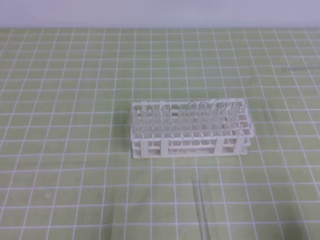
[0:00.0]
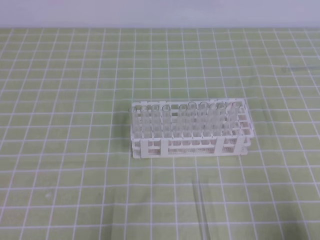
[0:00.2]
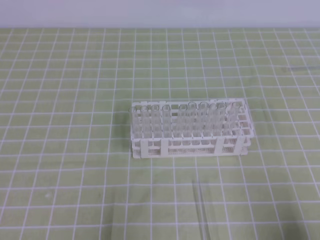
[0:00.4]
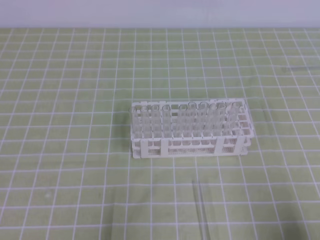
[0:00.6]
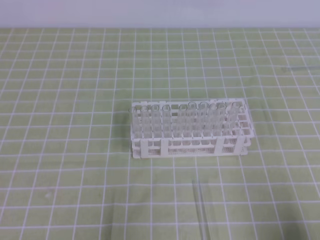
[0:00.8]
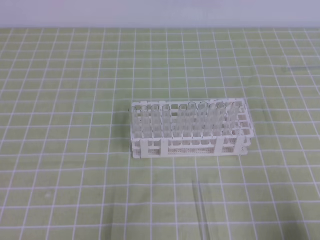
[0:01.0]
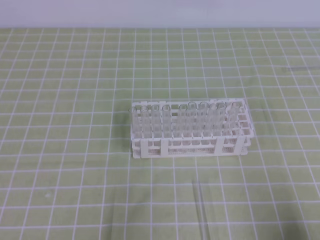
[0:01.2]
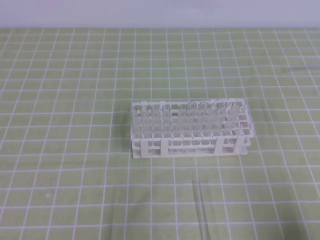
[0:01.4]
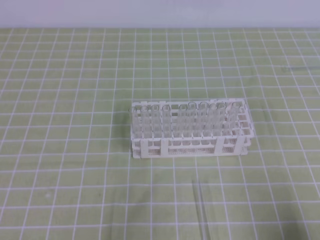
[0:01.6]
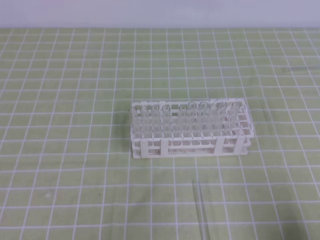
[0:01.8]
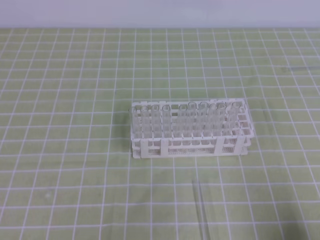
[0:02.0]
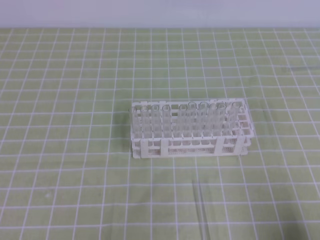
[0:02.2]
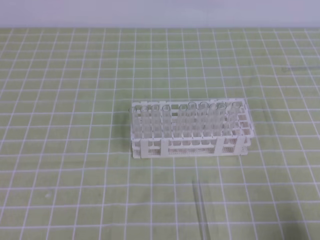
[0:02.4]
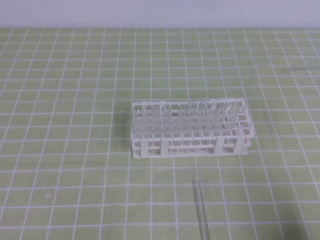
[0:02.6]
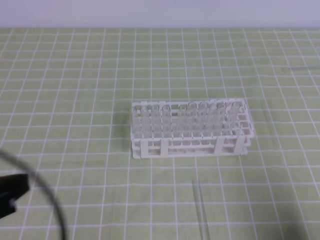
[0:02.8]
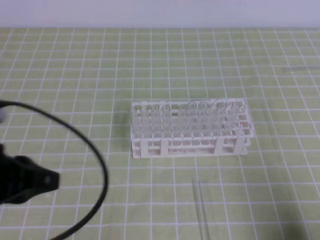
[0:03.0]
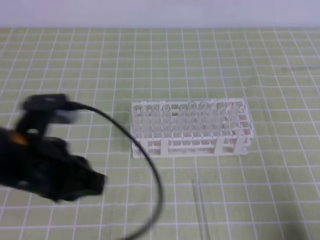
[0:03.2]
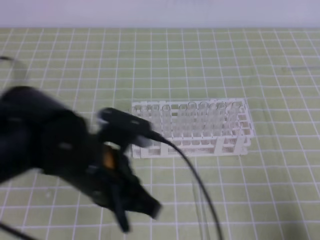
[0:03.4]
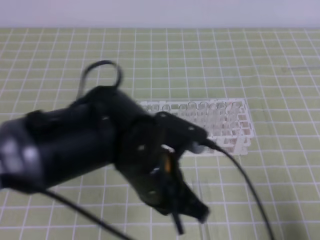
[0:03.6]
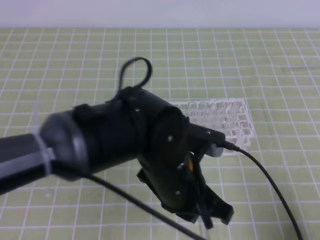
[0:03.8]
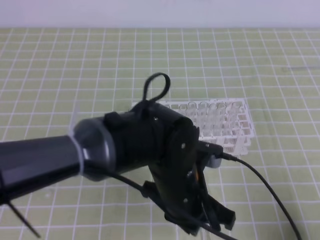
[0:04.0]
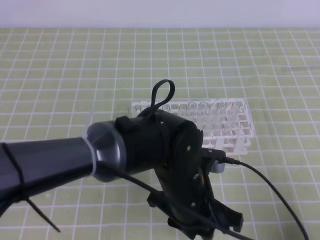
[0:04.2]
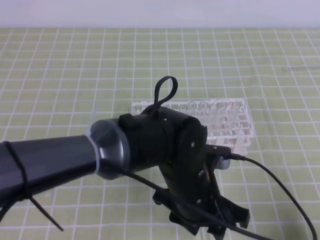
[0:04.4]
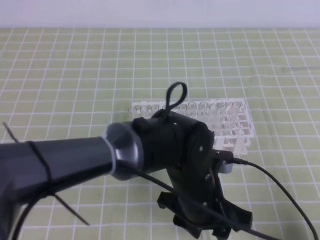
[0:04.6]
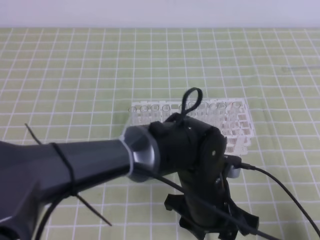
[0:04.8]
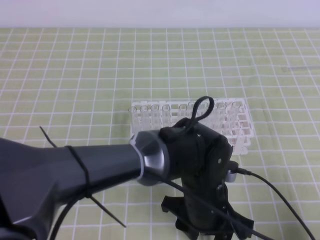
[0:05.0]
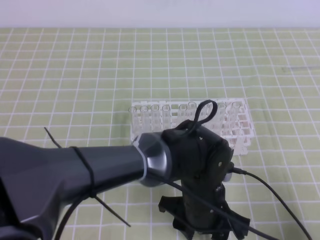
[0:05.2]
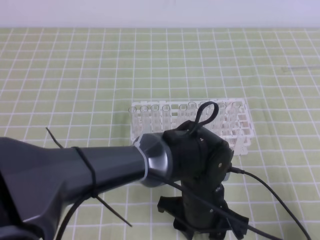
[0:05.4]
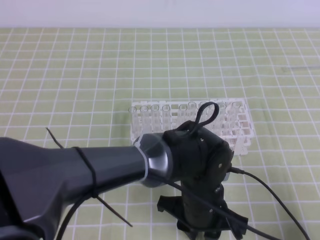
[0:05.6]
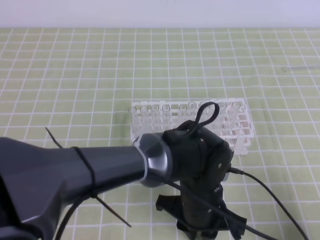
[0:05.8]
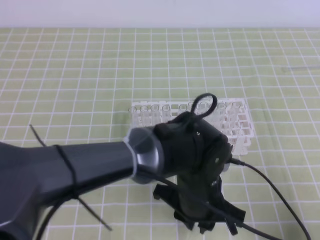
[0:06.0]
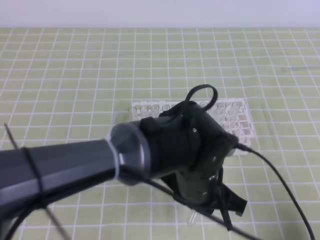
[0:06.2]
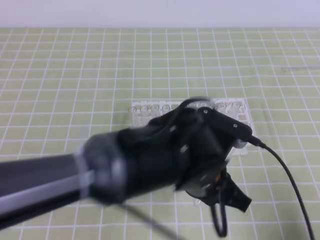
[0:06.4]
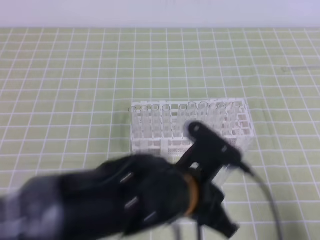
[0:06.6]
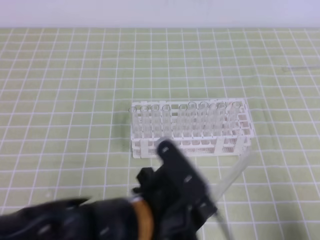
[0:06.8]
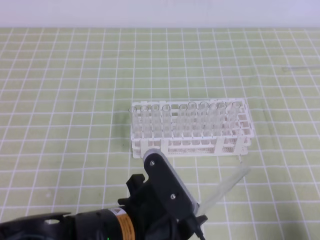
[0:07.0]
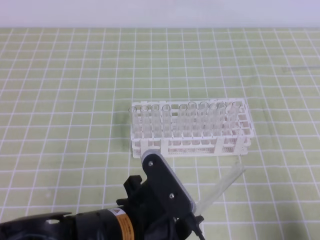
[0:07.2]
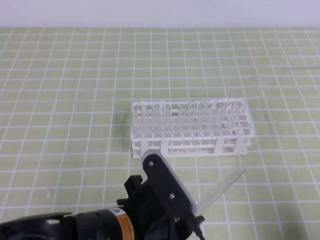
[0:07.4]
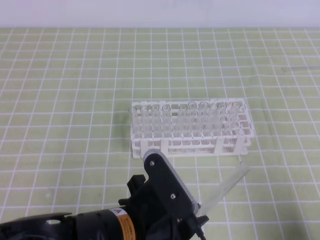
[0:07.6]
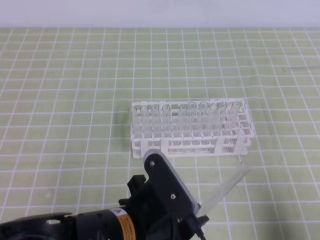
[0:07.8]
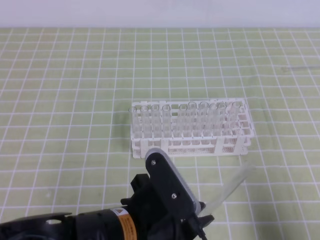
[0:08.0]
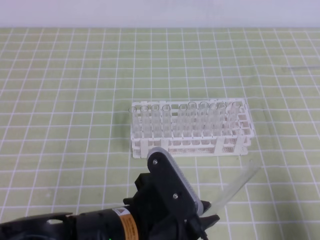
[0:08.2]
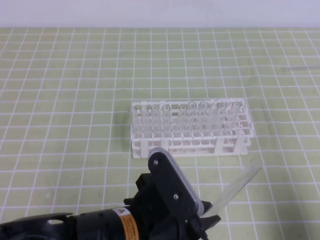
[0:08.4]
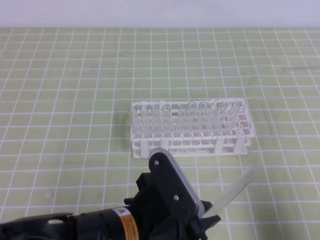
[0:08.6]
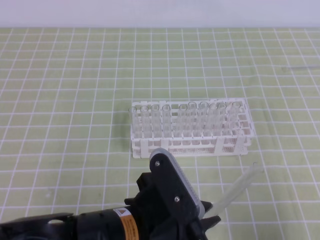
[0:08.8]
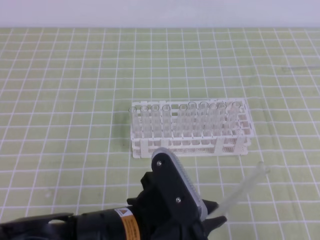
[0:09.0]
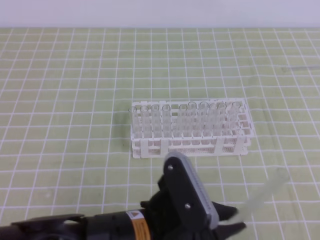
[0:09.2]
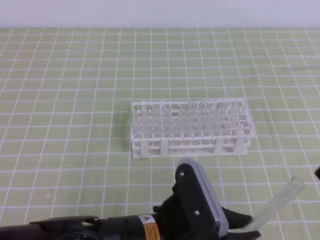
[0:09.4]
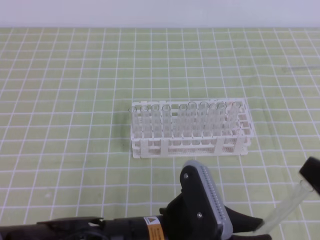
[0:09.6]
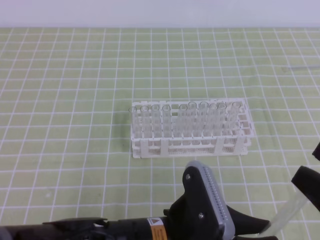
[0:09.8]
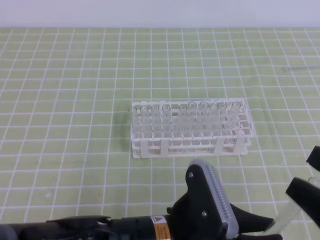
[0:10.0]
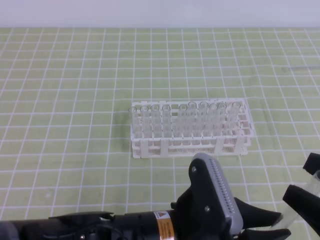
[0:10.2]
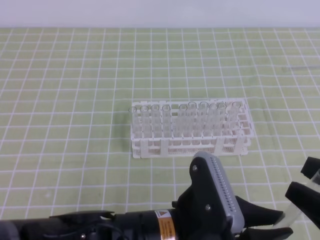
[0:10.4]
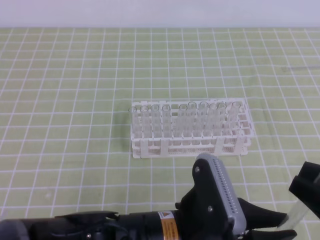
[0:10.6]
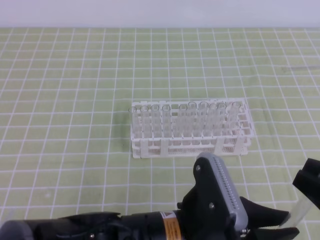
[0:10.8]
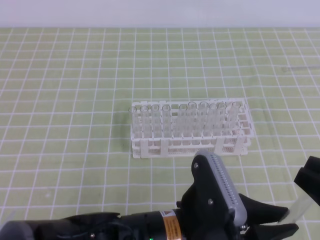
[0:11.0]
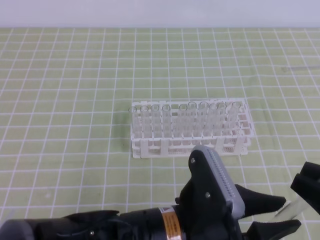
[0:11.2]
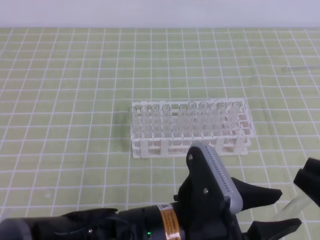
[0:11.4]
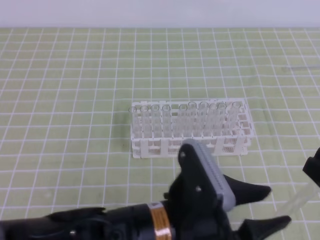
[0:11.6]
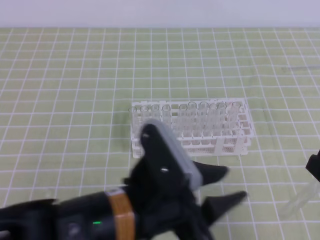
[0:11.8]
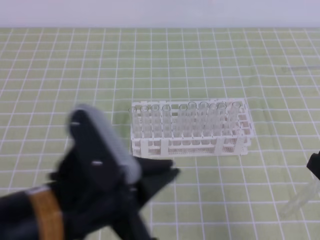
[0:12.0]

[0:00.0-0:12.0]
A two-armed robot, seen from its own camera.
0:01.6 to 0:03.0: The left gripper travels upward, forward and to the right by approximately 15 cm.
0:03.0 to 0:04.4: The left gripper heads to the right and downward, covering roughly 25 cm, and opens up.
0:04.4 to 0:06.0: The left gripper closes its fingers.
0:06.0 to 0:07.6: The left gripper travels to the left and backward by some 15 cm.
0:07.6 to 0:09.0: The right gripper goes roughly 5 cm upward, and opens.
0:09.0 to 0:10.4: The right gripper moves about 5 cm.
0:10.4 to 0:12.0: The right gripper closes its fingers, while the left gripper moves to the left and upward, roughly 10 cm, and opens, then closes again.

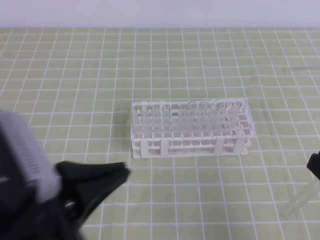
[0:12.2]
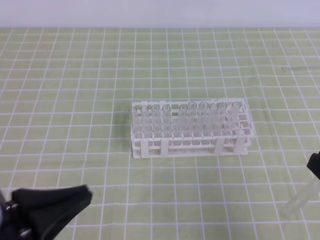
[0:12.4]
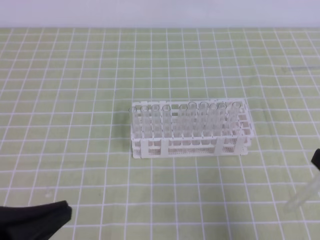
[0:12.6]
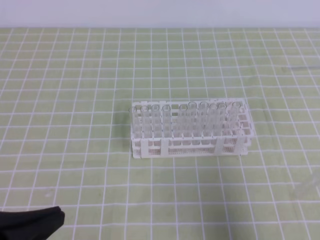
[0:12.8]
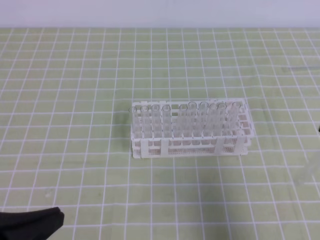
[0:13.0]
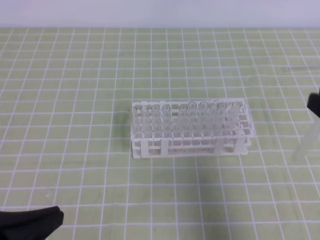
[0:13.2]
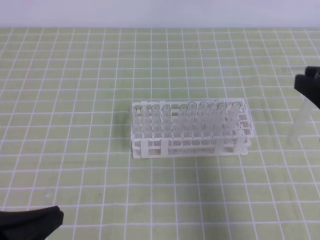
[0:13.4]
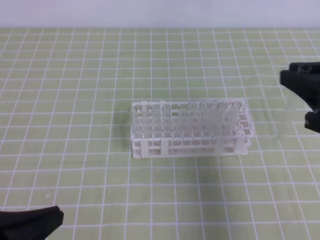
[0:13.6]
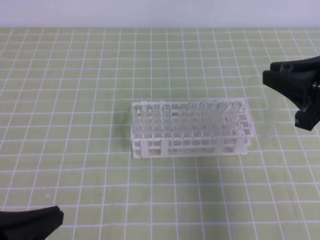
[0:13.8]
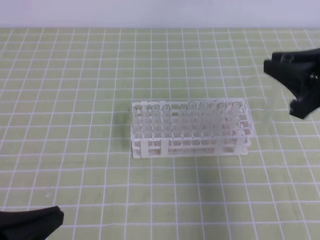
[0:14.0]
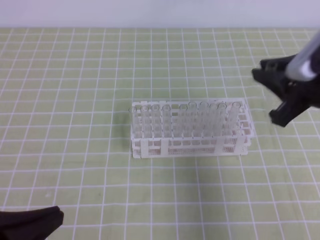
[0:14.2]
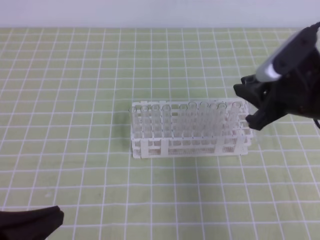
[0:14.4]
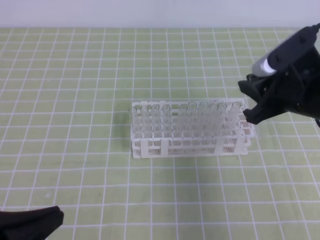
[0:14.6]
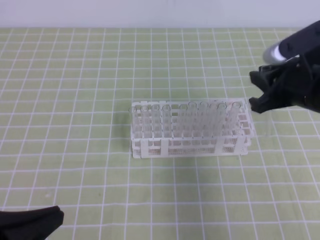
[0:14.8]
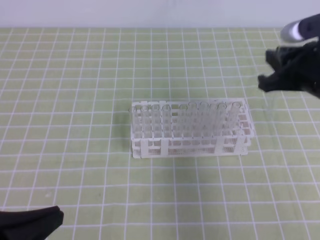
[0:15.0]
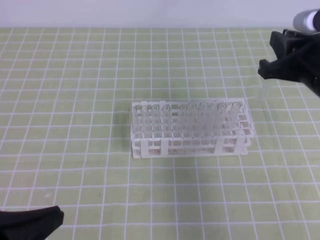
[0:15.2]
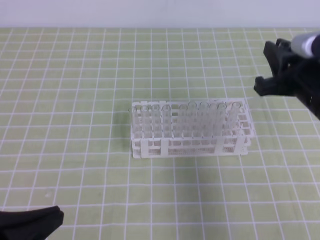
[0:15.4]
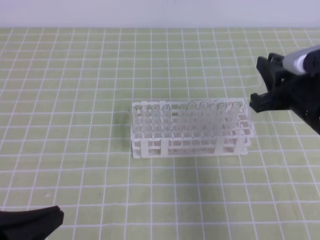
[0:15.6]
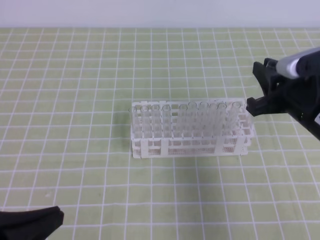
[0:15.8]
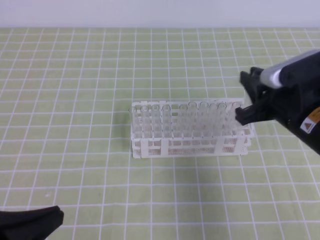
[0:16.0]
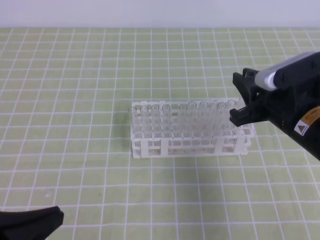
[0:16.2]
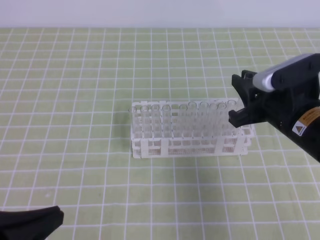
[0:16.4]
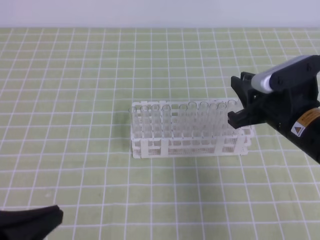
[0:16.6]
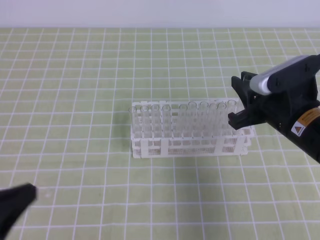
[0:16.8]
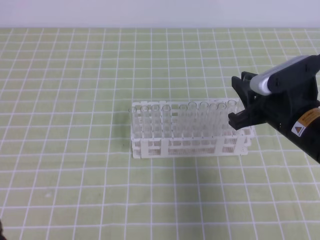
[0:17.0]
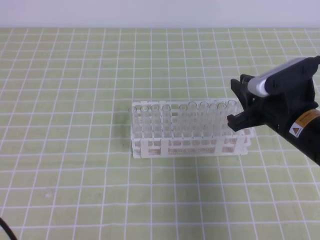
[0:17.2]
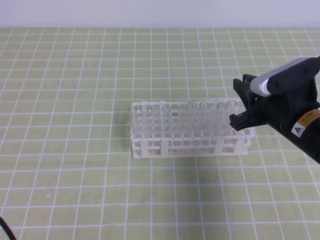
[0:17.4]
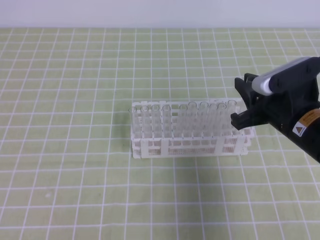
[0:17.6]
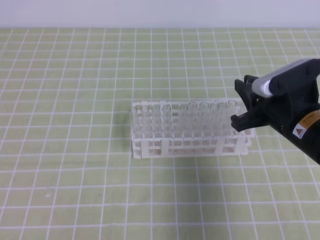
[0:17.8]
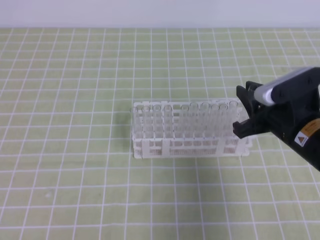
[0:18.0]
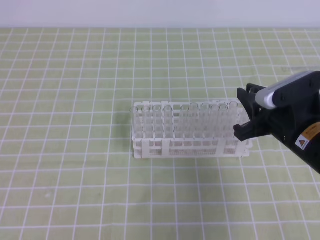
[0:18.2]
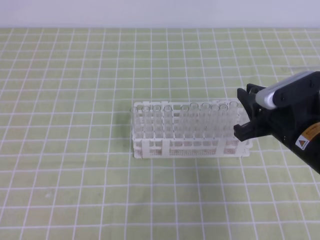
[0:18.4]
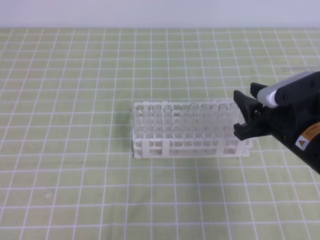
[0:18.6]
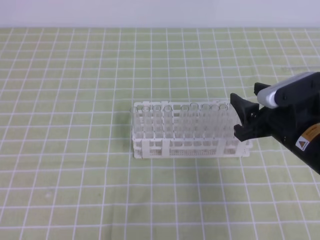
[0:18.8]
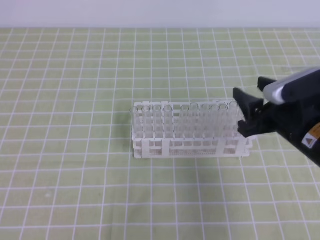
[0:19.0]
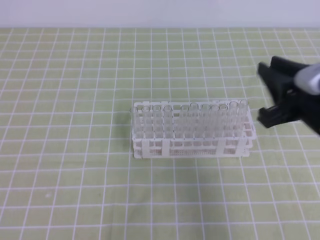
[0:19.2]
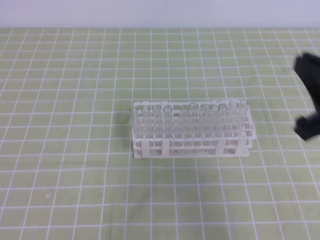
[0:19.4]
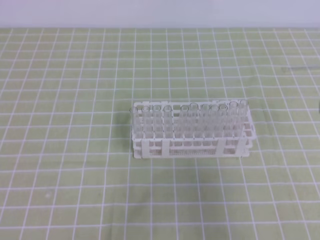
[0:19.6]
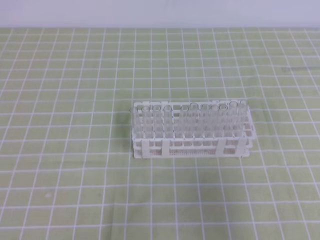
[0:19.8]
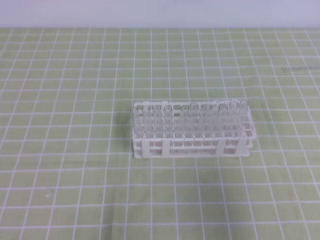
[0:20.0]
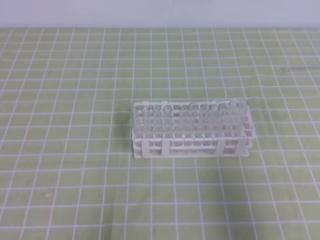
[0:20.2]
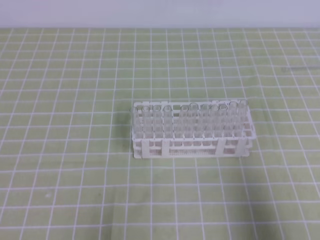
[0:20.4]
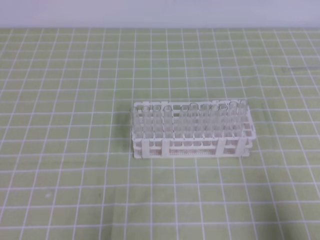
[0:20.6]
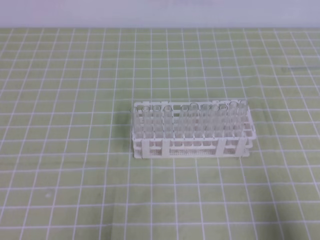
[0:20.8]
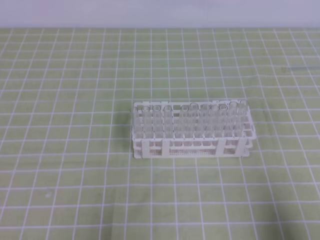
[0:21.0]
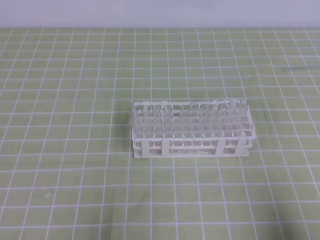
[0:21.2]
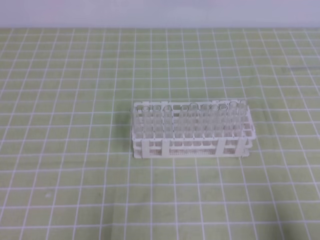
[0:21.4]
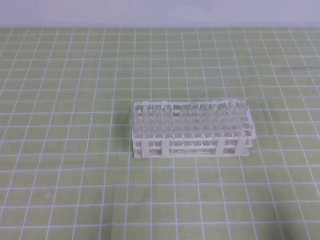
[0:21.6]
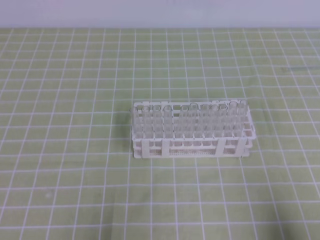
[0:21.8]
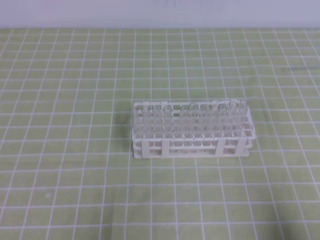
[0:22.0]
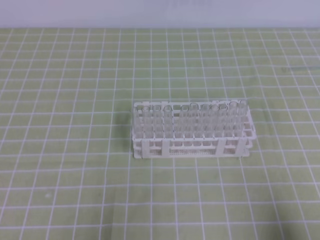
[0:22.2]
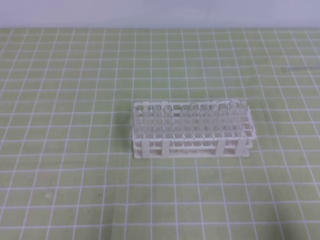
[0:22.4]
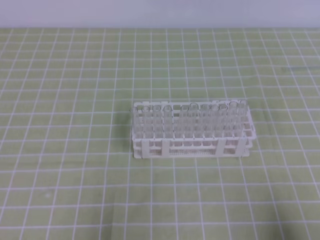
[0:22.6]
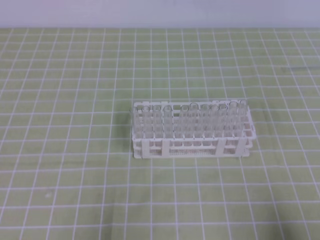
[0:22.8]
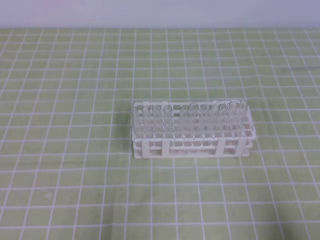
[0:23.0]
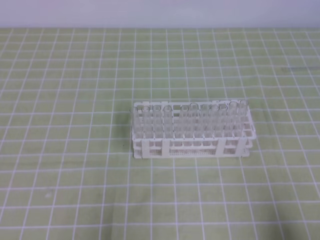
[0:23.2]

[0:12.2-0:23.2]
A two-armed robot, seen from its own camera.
0:12.2 to 0:13.8: The left gripper is displaced to the left by approximately 10 cm. The right gripper goes about 15 cm forward.
0:13.8 to 0:15.4: The right gripper changes place by approximately 5 cm.
0:15.4 to 0:17.0: The right gripper is displaced downward by about 5 cm.
0:18.4 to 0:20.0: The right gripper moves backward, to the right and upward, some 20 cm, and opens and closes again.
0:20.0 to 0:21.6: The right gripper is displaced downward and backward by some 15 cm.
0:21.6 to 0:23.2: Both grippers stay put.
